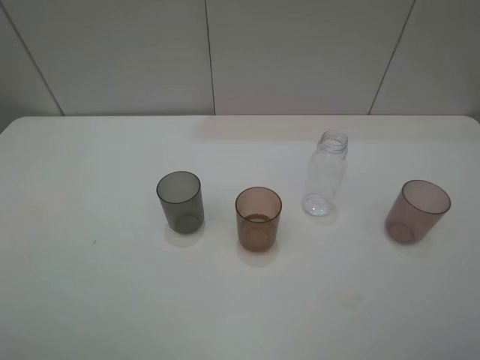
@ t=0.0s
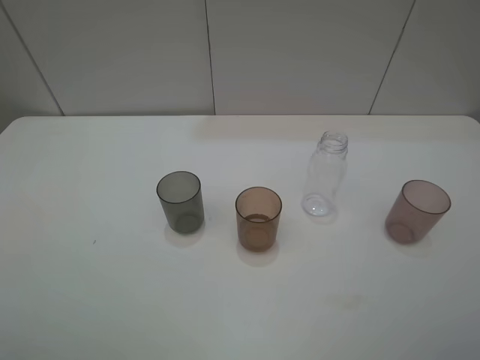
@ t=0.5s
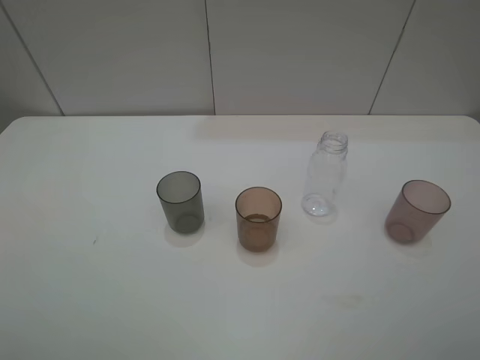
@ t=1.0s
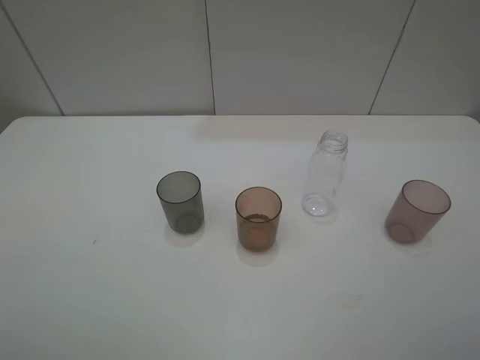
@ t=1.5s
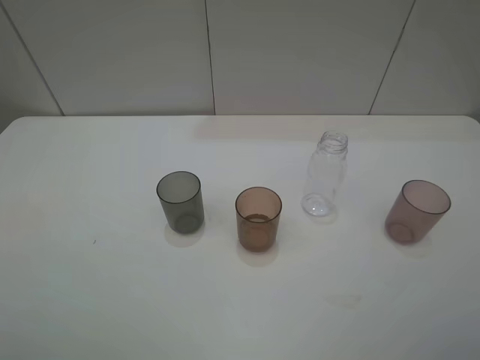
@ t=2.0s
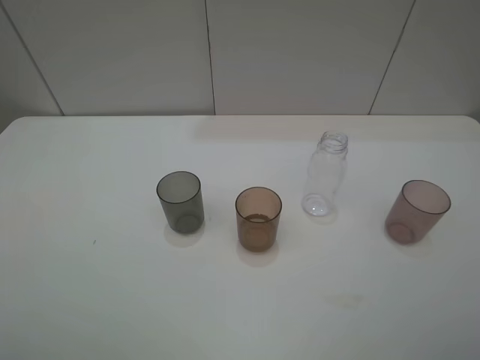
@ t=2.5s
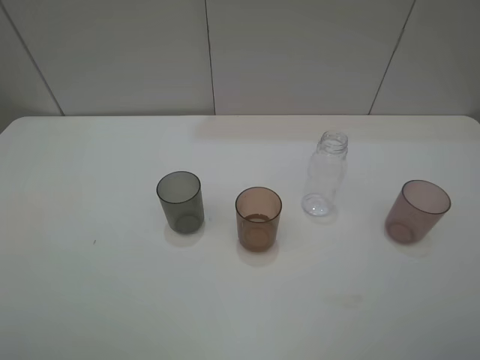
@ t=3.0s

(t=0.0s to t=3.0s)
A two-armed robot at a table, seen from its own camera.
Task of the whole recording: pick up the bottle filled with water and pour water into the middle cup of the three cups.
t=1.5s - t=3.0s: Both grippers stay about where they are.

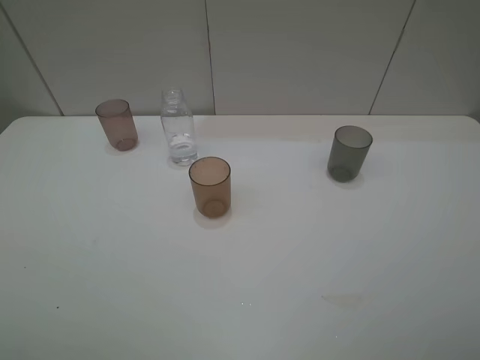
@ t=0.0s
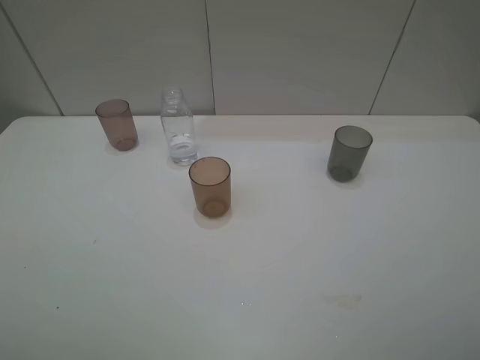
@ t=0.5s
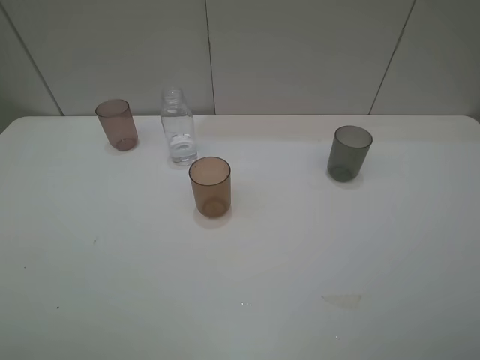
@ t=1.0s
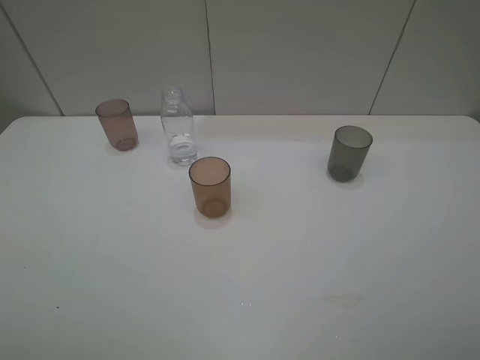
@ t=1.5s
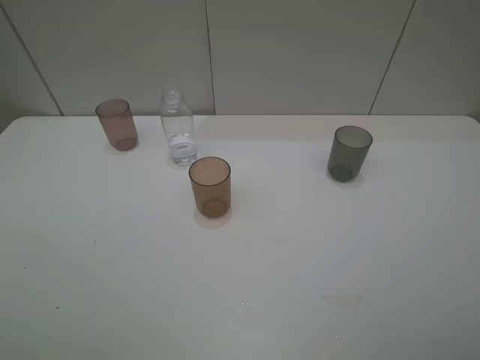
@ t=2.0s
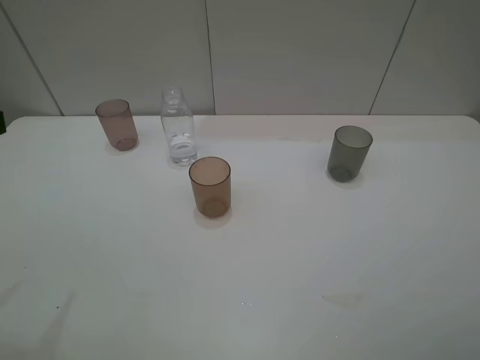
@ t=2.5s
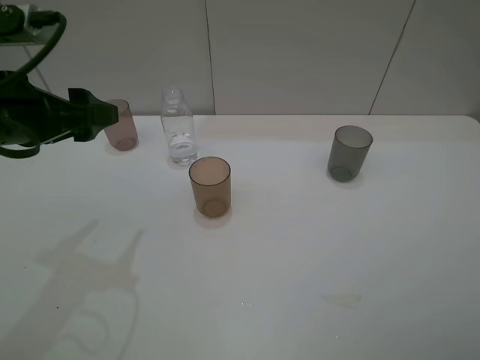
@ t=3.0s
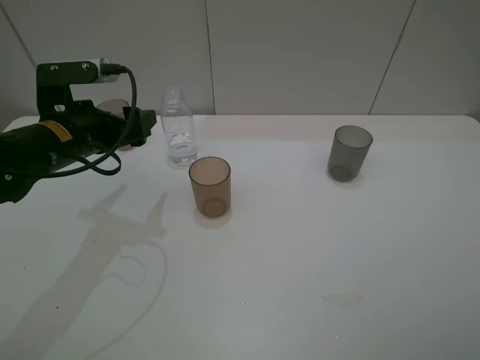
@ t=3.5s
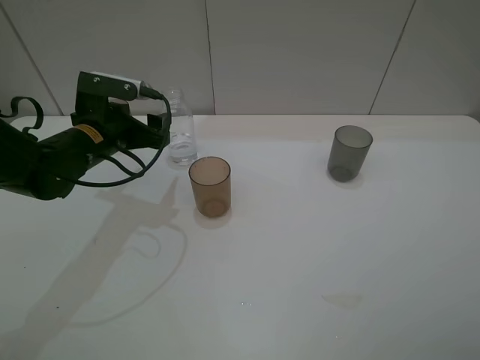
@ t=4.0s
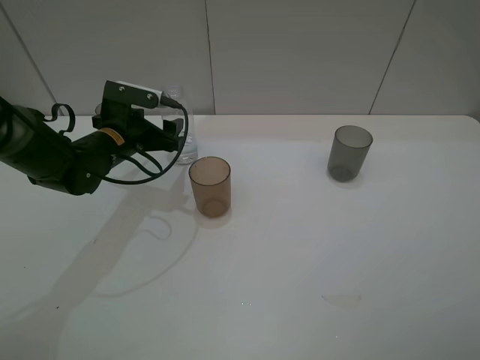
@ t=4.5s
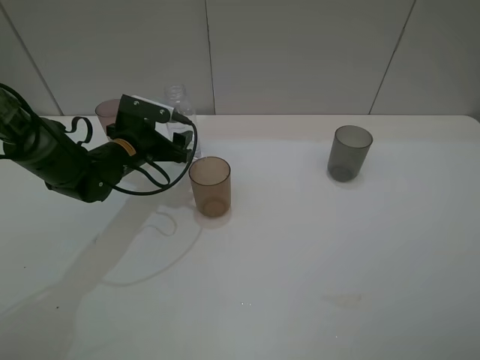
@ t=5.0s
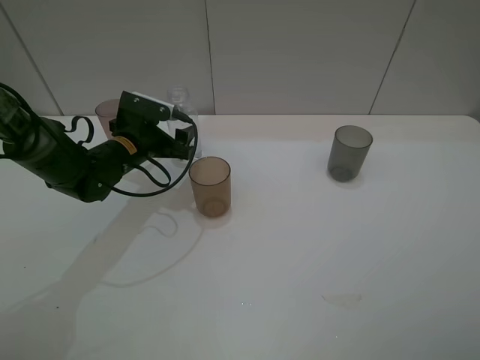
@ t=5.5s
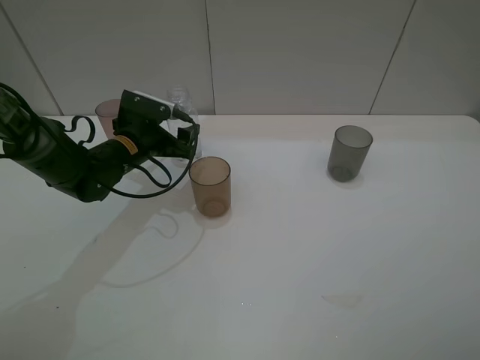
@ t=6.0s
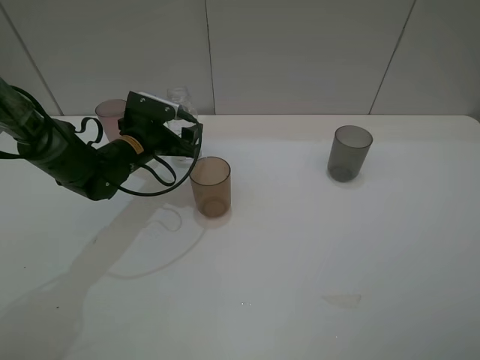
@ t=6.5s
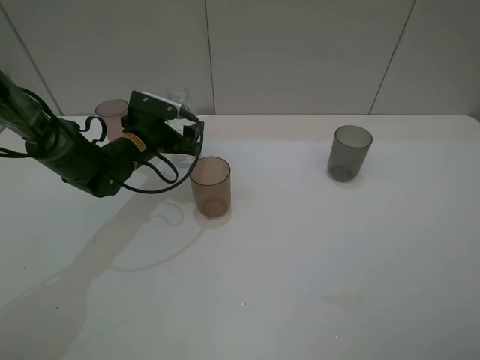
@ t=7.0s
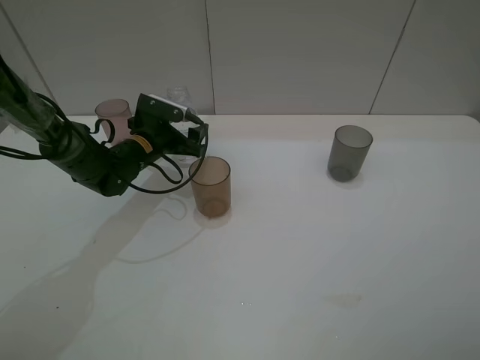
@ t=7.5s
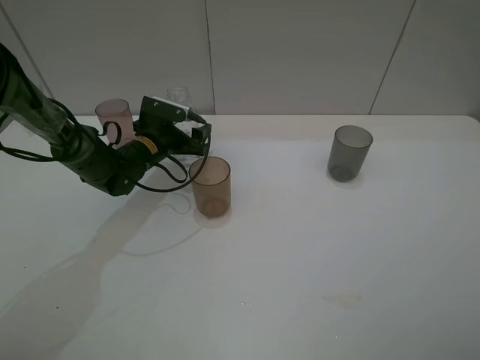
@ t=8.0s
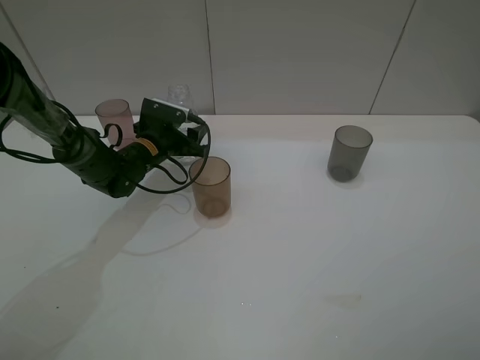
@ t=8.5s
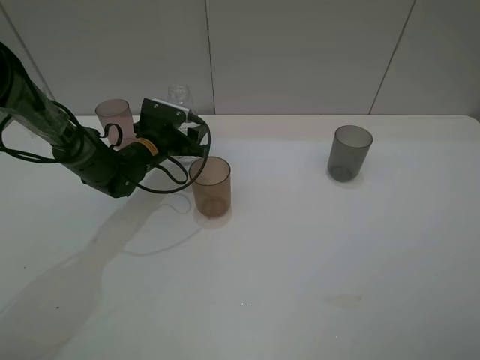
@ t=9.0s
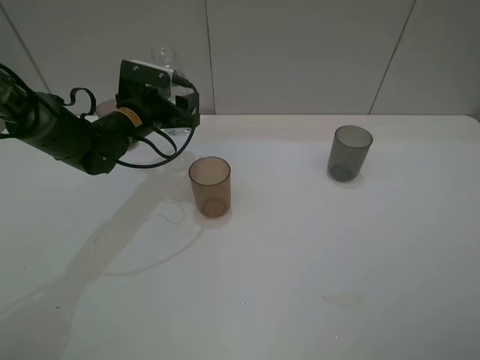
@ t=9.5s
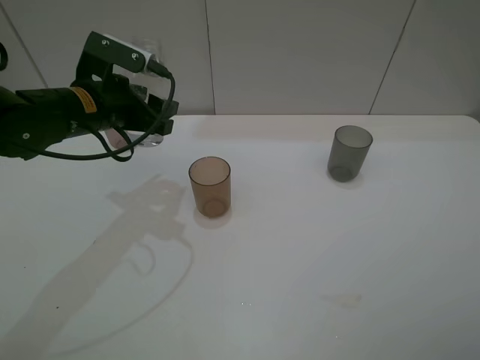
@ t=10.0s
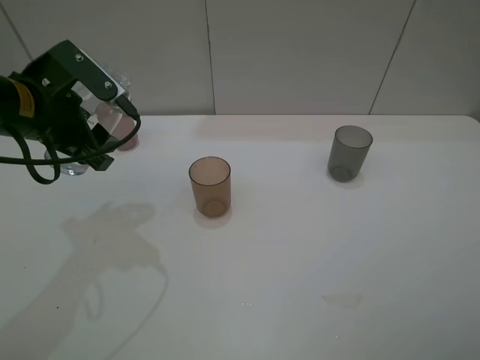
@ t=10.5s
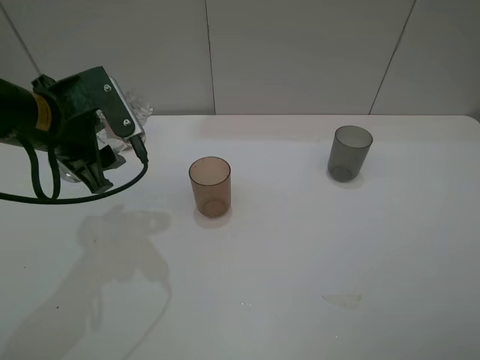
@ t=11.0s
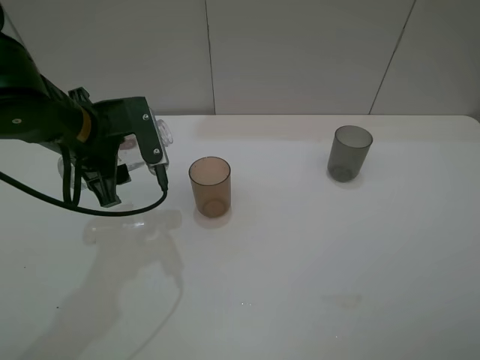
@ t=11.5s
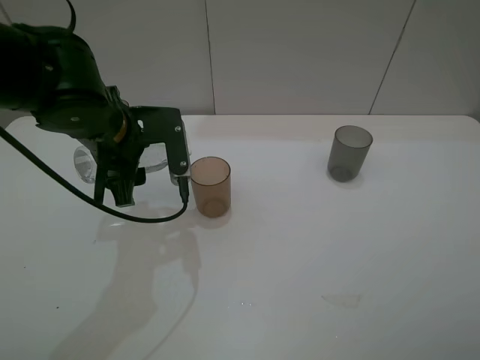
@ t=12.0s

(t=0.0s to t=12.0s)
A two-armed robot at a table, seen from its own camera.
Task of the whole recording: pick up the bottle filled with water and pour water into the middle cup of the three cups.
Step, t=0.0s - t=8.0s: Grasp the transparent bottle with the left gripper.
t=2.0s - t=4.0s: The left gripper shifts roughly 30 cm forward and downward.
t=4.0s - t=6.0s: The left gripper ends up about 5 cm from where it was.
t=6.0s - t=8.0s: The left gripper changes place by about 5 cm.
t=8.0s - t=10.0s: The left gripper travels upward and backward by roughly 15 cm, and closes.
t=10.0s - t=12.0s: The left gripper shifts by roughly 5 cm.

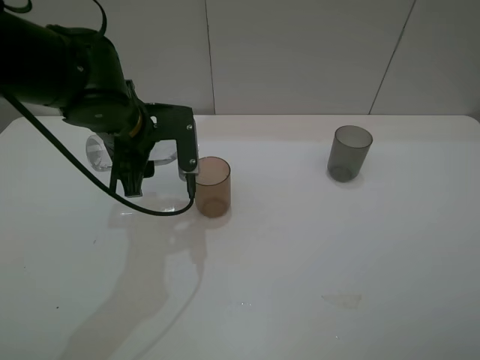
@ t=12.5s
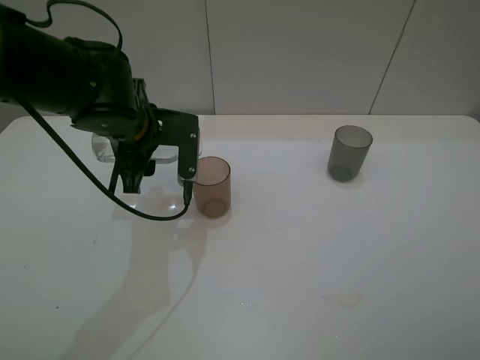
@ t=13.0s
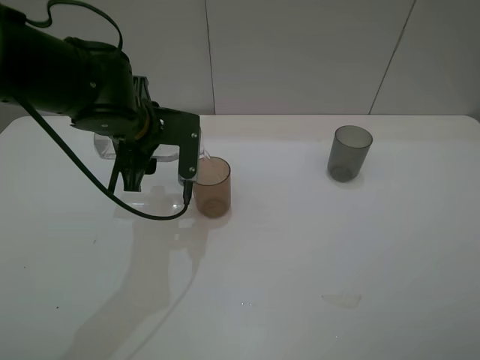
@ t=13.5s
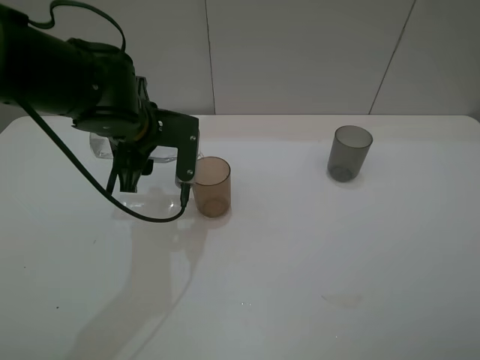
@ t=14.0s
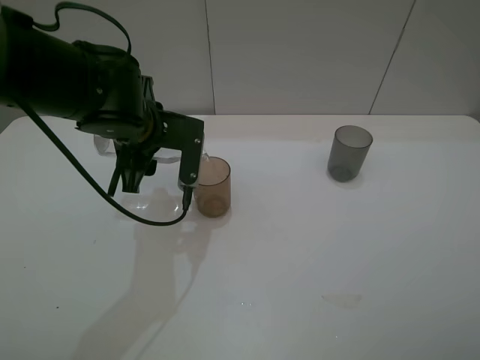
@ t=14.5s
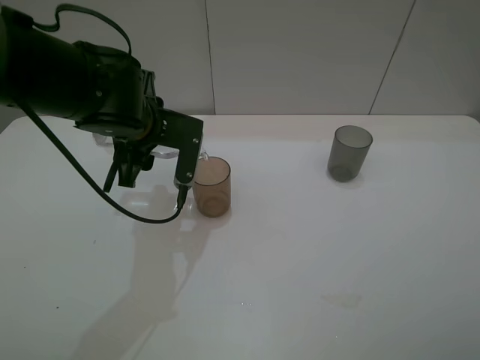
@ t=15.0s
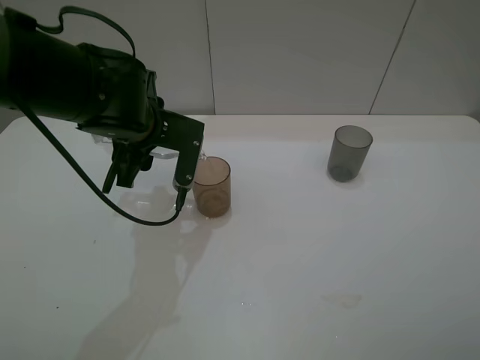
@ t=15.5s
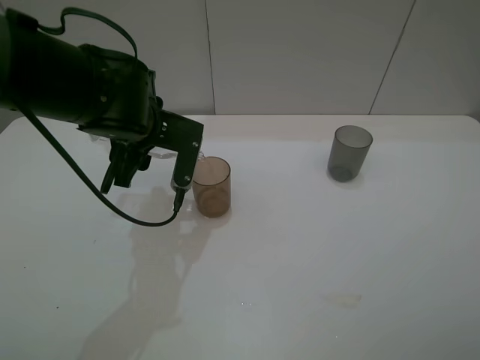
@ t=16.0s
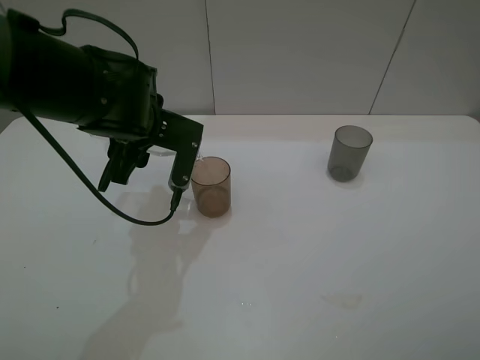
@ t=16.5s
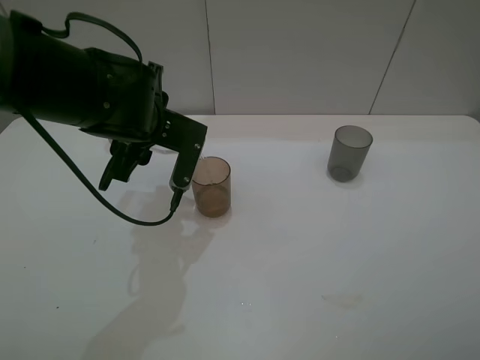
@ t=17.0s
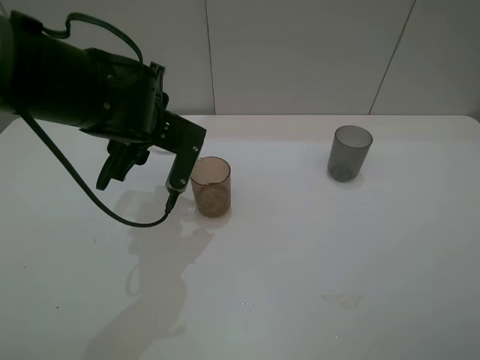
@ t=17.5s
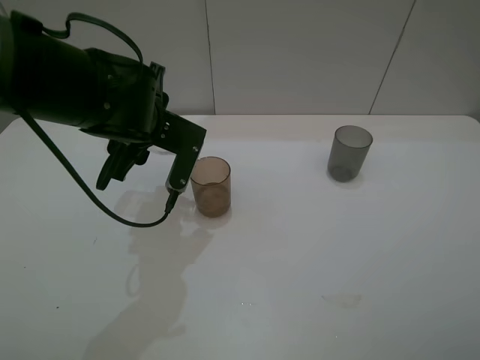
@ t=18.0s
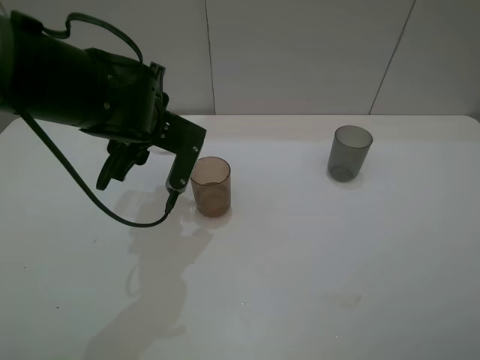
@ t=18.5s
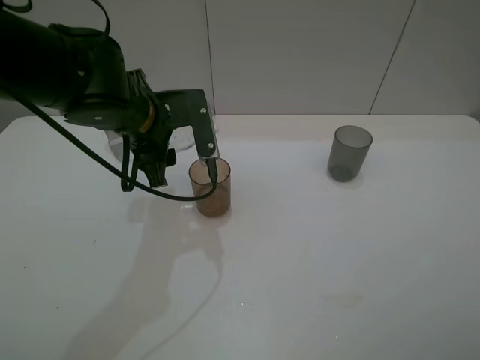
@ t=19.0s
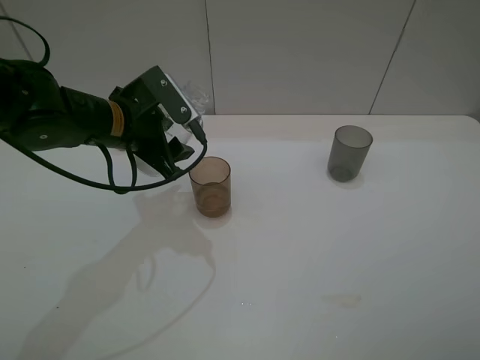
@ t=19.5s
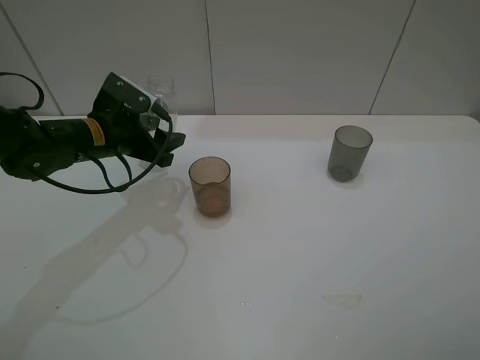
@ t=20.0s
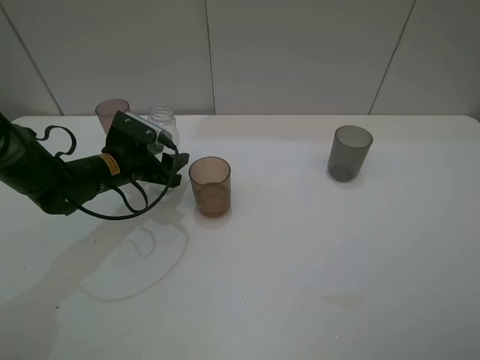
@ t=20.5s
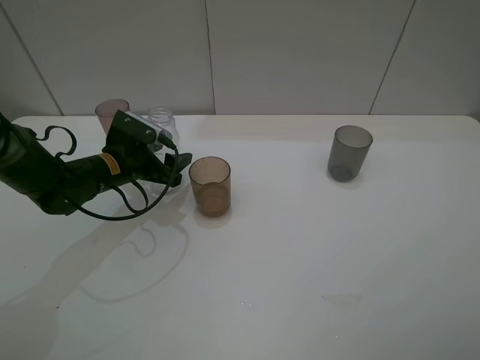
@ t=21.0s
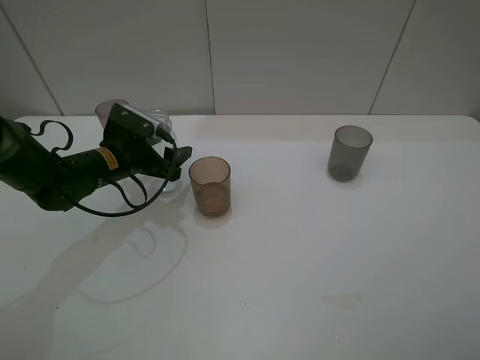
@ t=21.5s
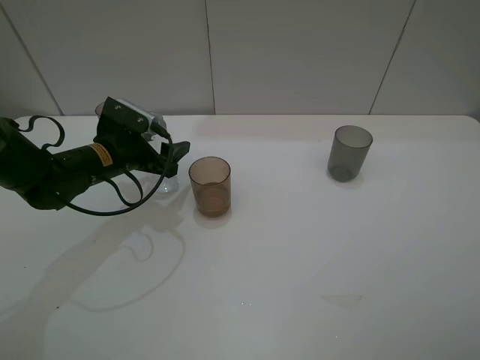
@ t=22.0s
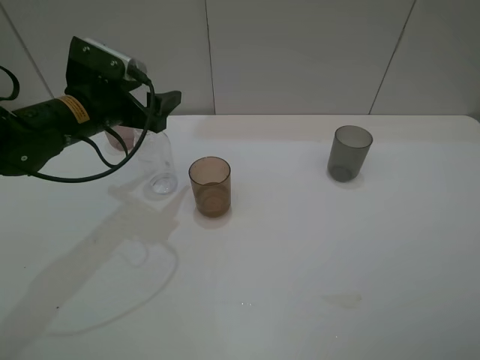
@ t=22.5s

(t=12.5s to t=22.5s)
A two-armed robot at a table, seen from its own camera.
Task of the whole recording: pick up the bottle filled with water and pour water into the middle cup of the three cups.
Step, t=12.5s - t=16.0s: Pour water from transparent bottle to brown cup with the left gripper.
t=12.5s - t=14.5s: The grippers make only small movements.
t=14.5s - t=18.5s: There are only small adjustments of the grippers.
t=18.5s - t=20.5s: The left gripper travels downward and to the left by roughly 15 cm.
t=20.5s - t=22.5s: The left gripper shifts about 10 cm upward, and opens its fingers.
